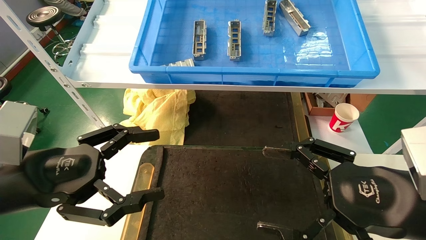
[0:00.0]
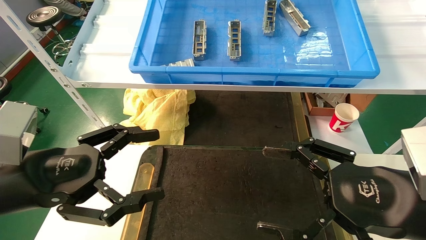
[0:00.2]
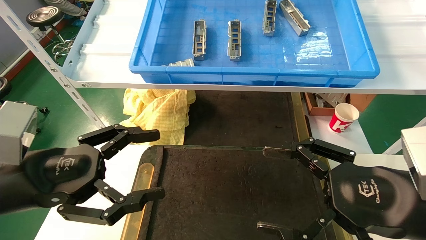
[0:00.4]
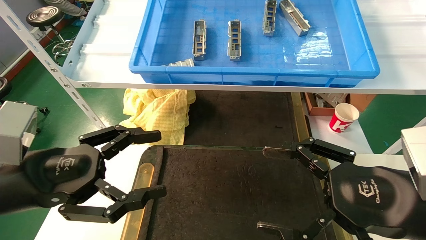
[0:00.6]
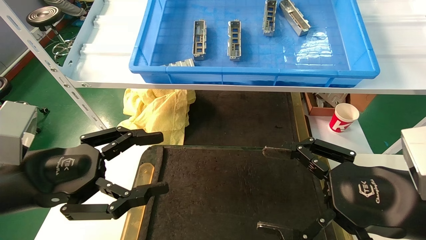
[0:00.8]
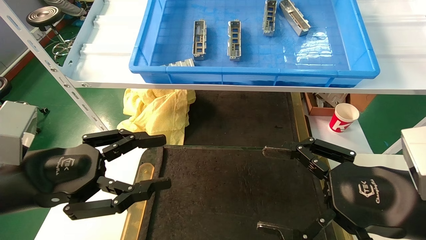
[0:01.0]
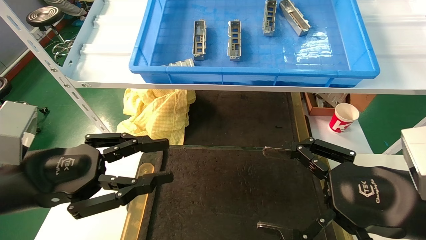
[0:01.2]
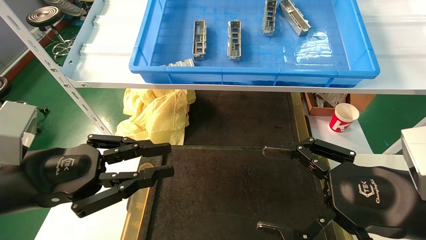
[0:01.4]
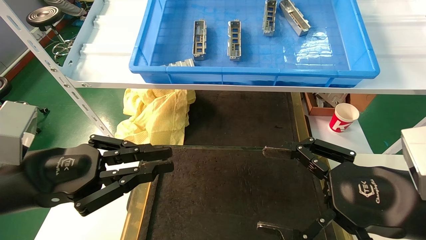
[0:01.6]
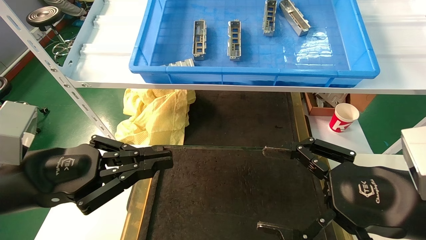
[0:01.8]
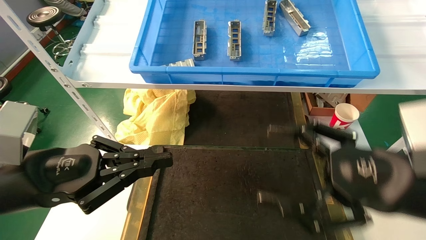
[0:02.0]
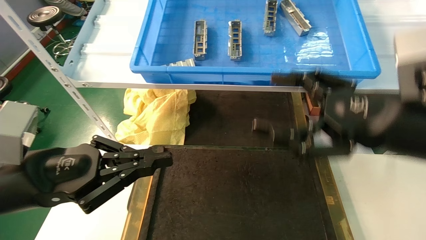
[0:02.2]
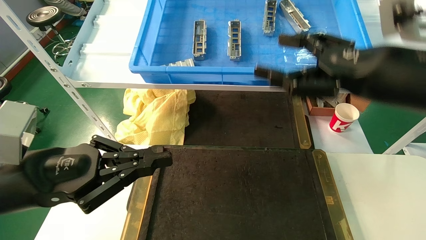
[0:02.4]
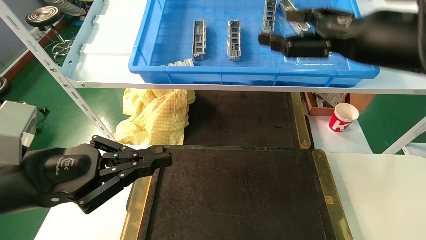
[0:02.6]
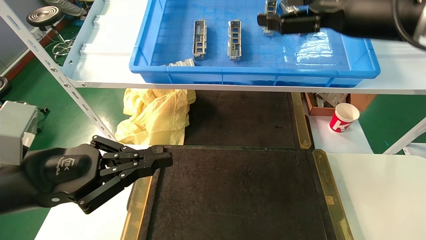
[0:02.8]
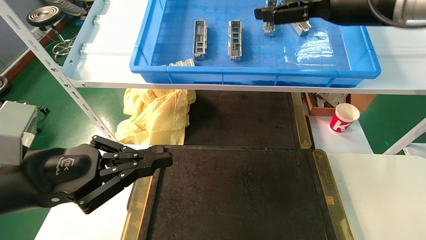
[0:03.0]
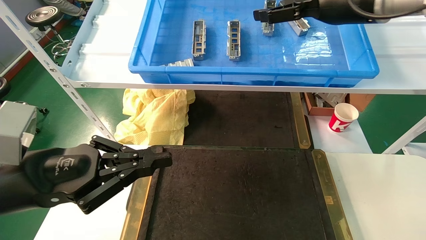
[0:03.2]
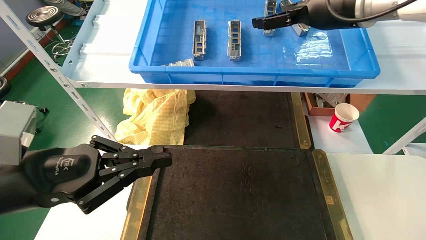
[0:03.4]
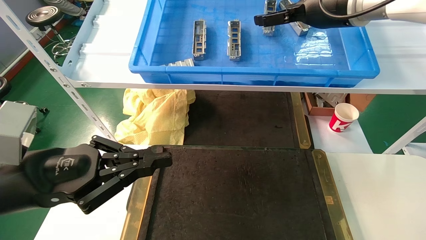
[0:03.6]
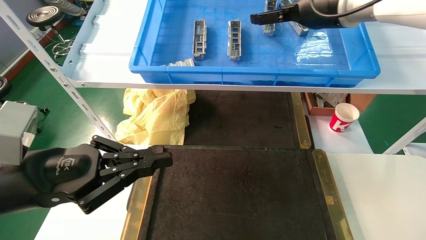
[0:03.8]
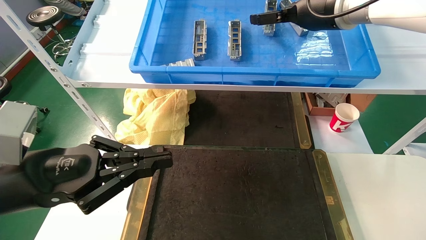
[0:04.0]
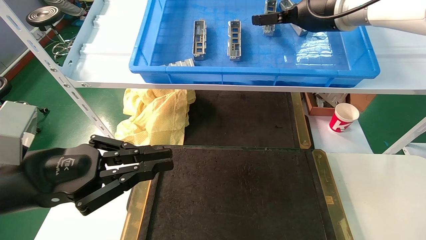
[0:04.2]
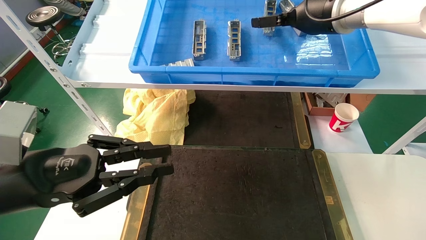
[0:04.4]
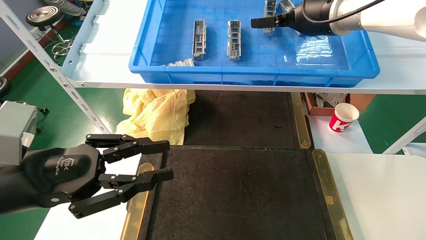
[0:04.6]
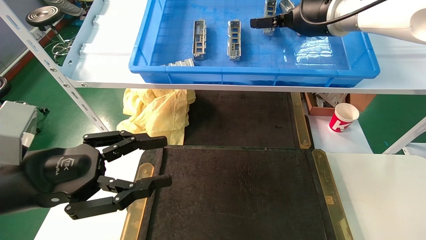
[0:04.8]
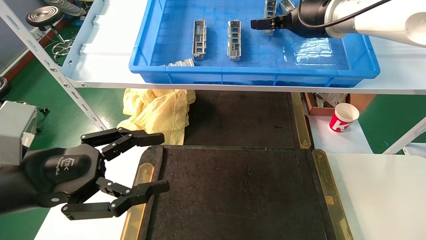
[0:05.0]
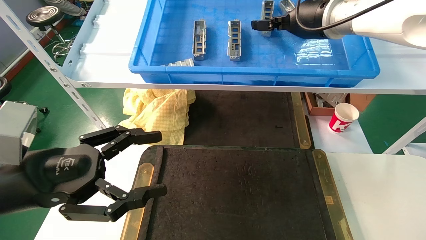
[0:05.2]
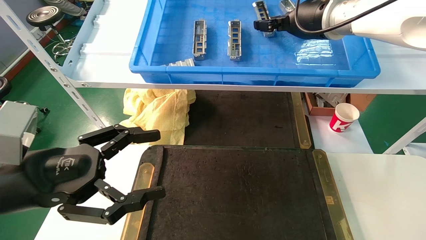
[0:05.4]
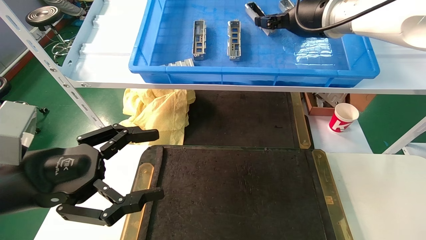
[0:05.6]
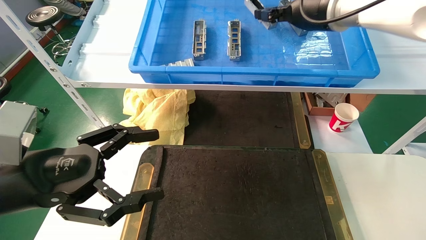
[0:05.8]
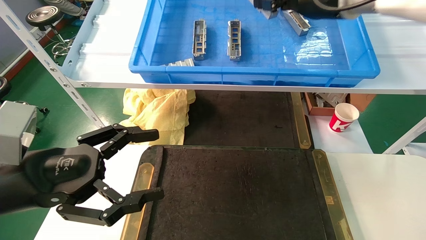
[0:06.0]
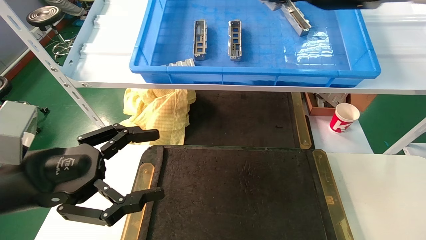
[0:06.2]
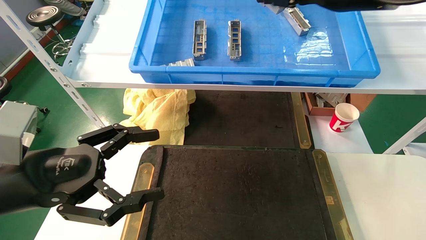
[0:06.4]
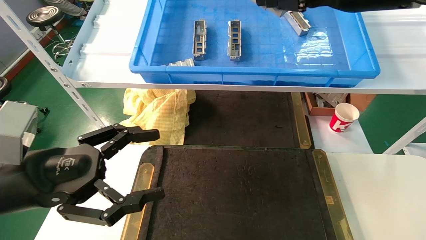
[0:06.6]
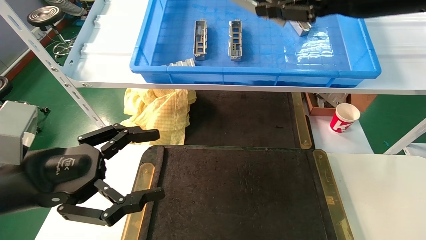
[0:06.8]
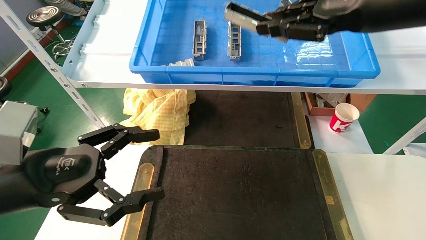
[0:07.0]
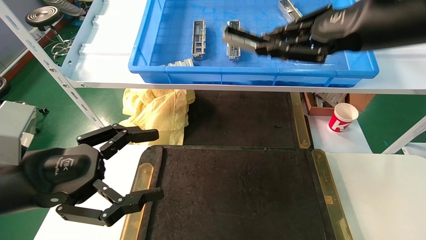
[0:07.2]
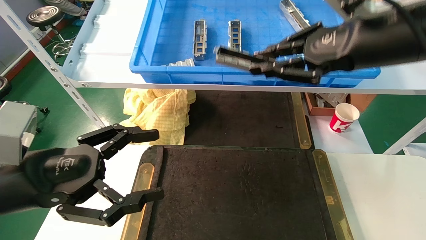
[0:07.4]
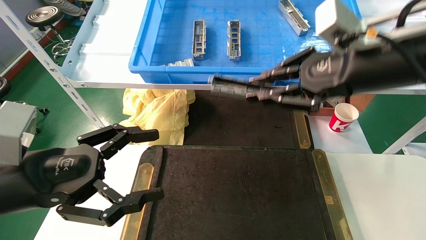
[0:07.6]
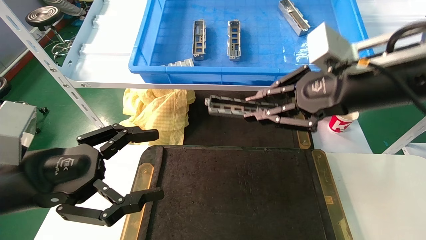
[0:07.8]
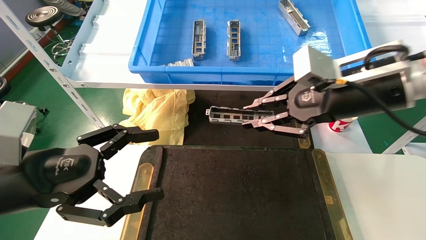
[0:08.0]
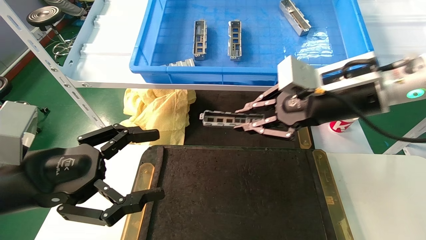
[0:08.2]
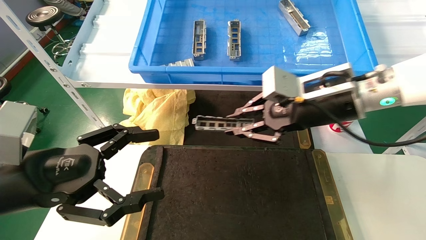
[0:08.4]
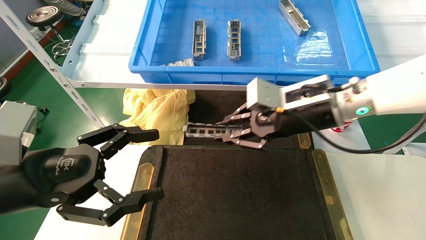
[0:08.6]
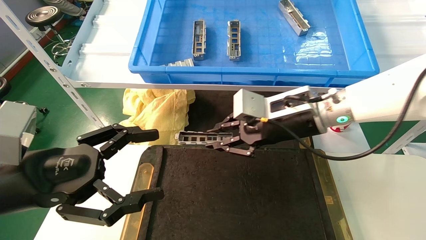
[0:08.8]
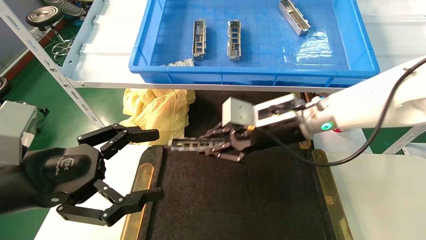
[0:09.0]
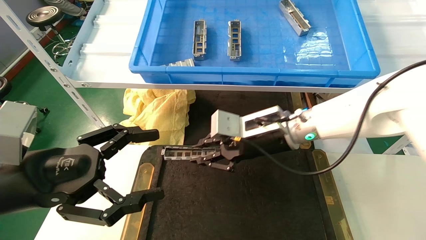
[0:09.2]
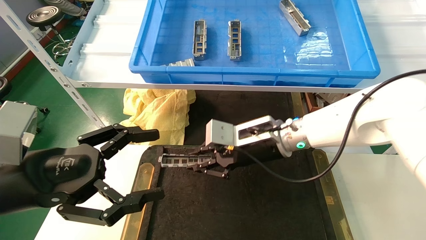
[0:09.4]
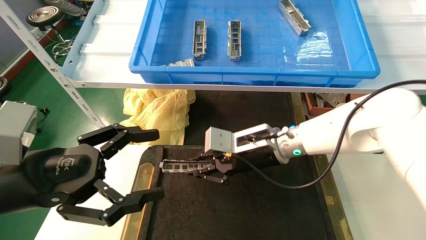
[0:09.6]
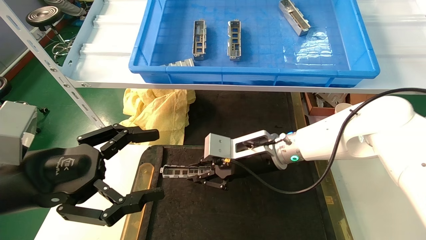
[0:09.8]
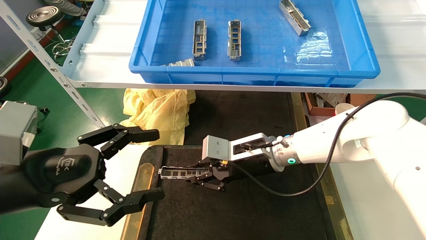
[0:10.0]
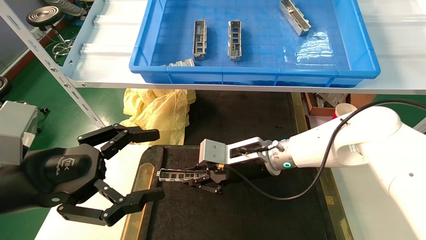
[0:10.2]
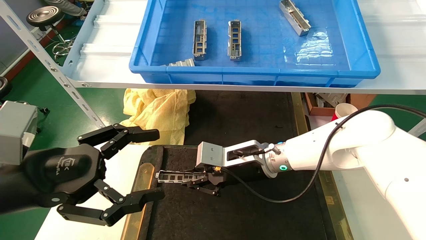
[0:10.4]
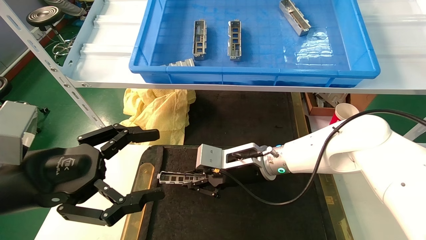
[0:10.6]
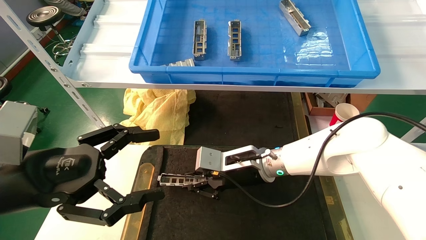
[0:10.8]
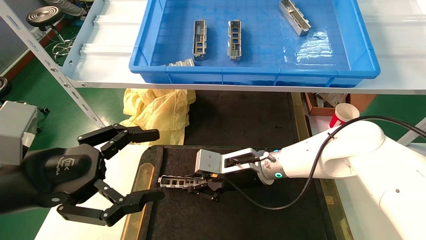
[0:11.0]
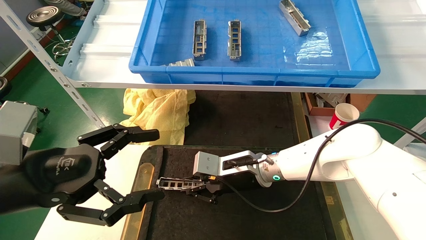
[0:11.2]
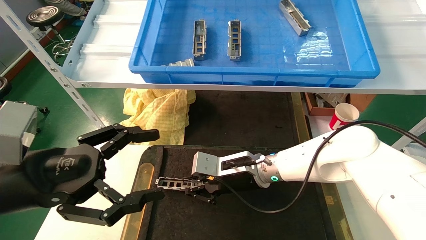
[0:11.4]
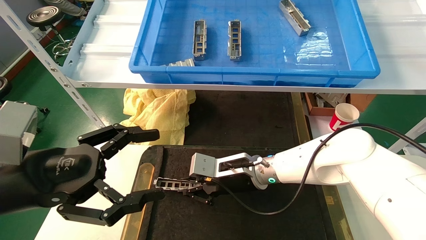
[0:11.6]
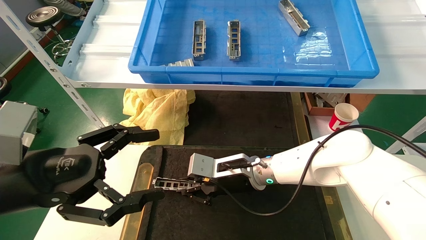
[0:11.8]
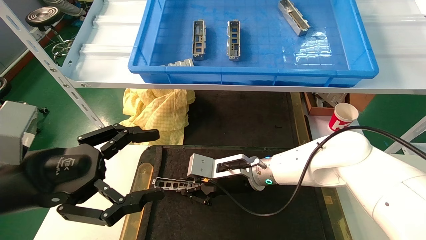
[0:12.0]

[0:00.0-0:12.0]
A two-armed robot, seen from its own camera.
Task of the whole recording: grasp the part and place them on the black container.
Step, 0:02.4 to 0:06.4: Pick up and lift the front USB bracket from the feeding area.
0:00.0 to 0:01.6: The left gripper closes its fingers.
0:01.6 to 0:03.0: The right gripper heads upward and forward, covering roughly 30 cm.
0:03.0 to 0:04.4: The right gripper shifts about 5 cm forward.
0:04.4 to 0:06.0: The left gripper opens its fingers. Meanwhile the right gripper closes up.
0:06.0 to 0:07.6: The right gripper heads backward and downward, covering some 15 cm.
0:07.6 to 0:09.0: The right gripper moves downward, to the left and forward, some 20 cm.
0:09.0 to 0:10.4: The right gripper shifts approximately 10 cm downward.
0:10.4 to 0:12.0: The grippers make only small movements.

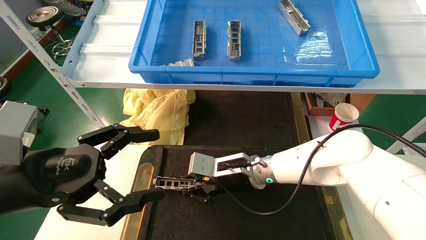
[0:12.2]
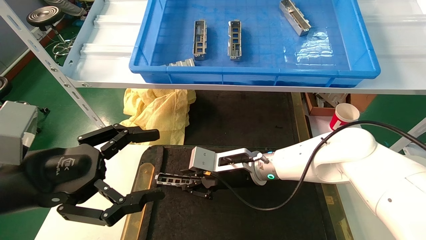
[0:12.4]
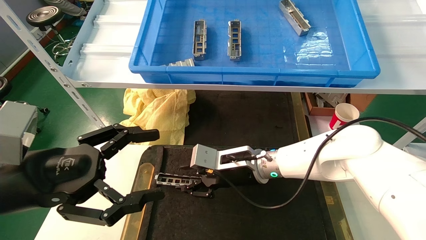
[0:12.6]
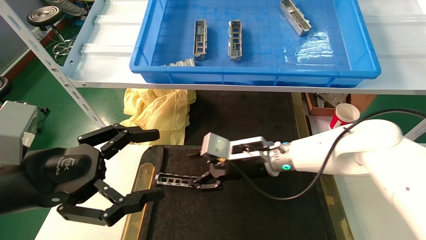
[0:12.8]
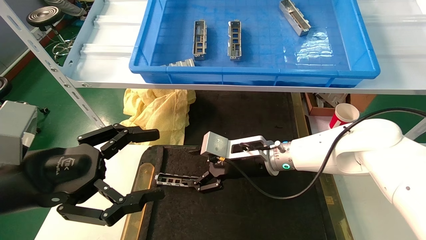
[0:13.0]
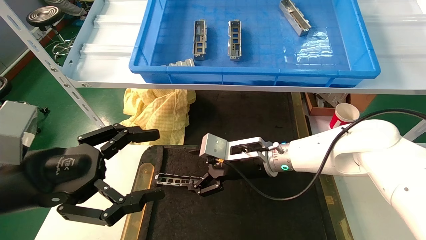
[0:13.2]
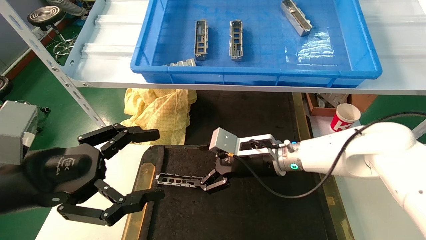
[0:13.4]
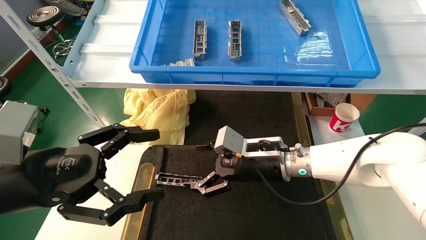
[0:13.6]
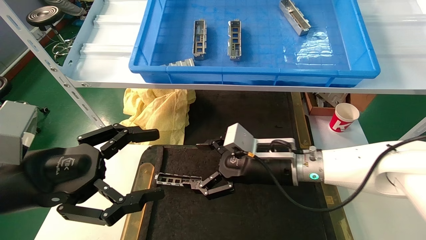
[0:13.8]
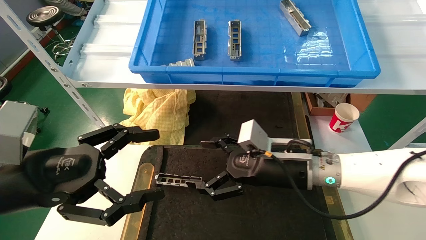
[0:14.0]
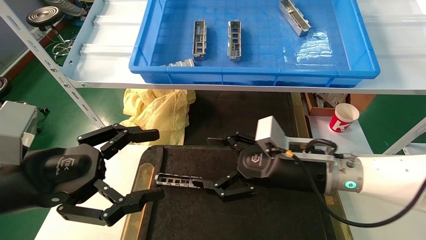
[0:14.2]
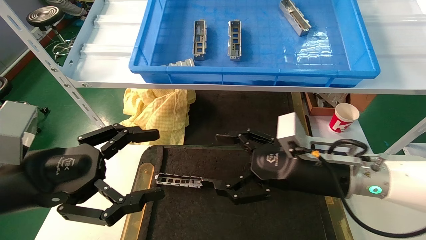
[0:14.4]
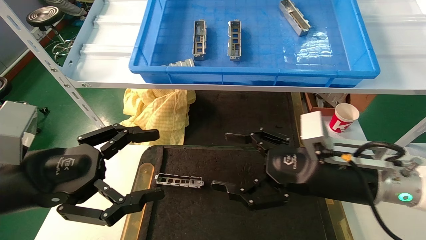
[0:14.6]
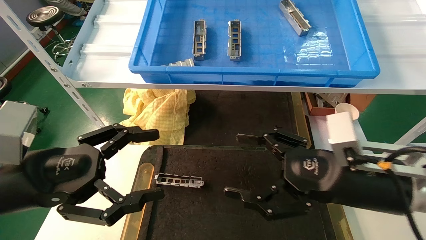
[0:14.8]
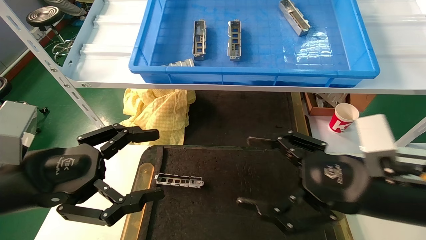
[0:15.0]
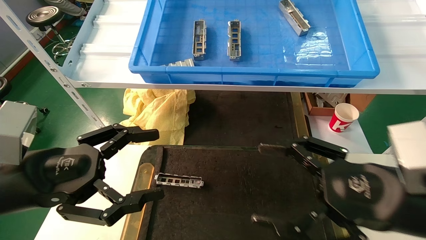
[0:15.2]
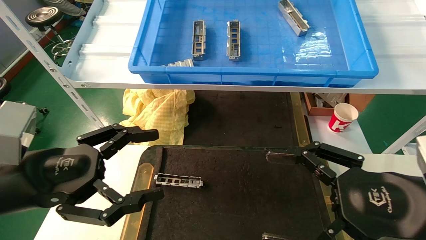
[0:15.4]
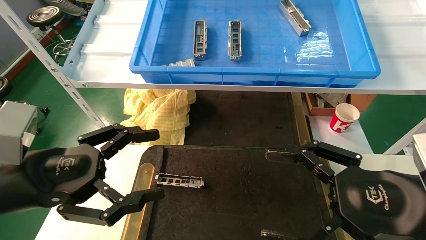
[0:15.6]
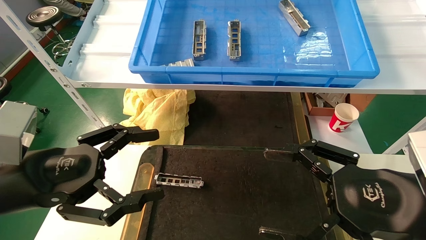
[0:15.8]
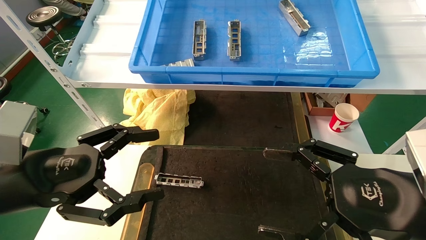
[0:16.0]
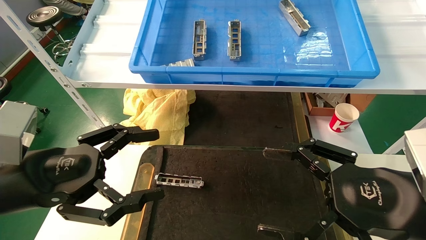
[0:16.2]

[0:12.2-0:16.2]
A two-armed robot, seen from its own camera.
Task of the whole recording: grasp the part and place them on the black container.
0:12.2 to 0:13.6: The right gripper ends up roughly 5 cm from where it was, and opens its fingers.
0:13.6 to 0:14.8: The right gripper heads backward and to the right, covering roughly 20 cm.
0:14.8 to 0:16.2: The right gripper heads backward, covering roughly 5 cm.
